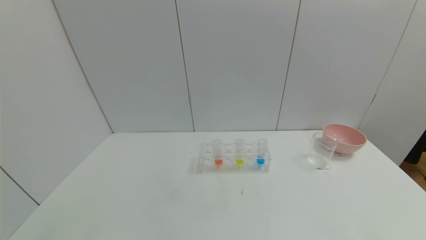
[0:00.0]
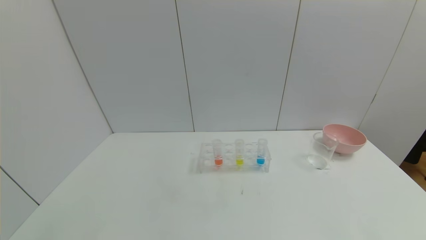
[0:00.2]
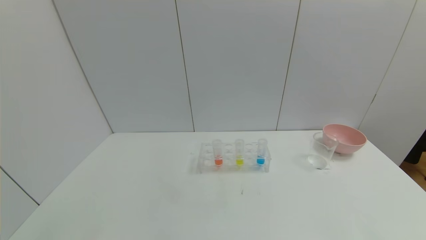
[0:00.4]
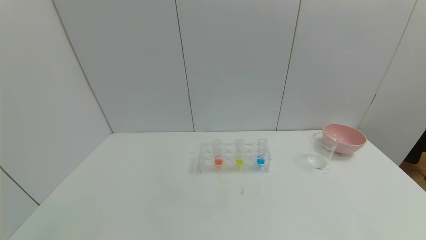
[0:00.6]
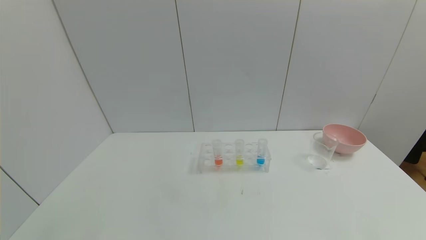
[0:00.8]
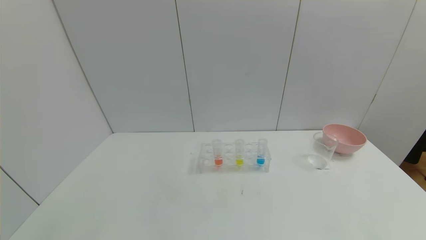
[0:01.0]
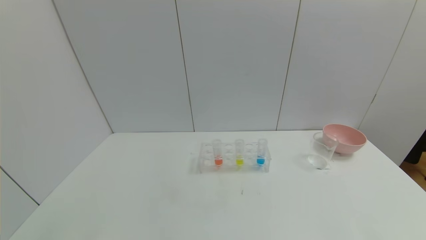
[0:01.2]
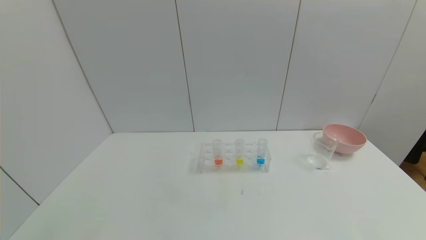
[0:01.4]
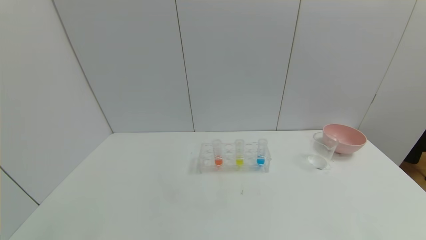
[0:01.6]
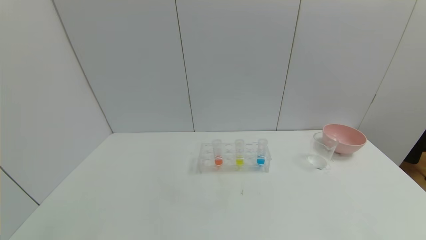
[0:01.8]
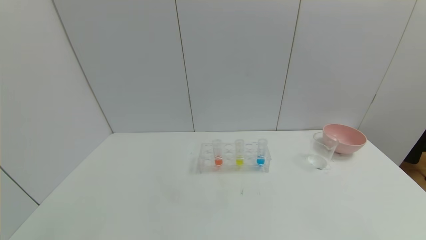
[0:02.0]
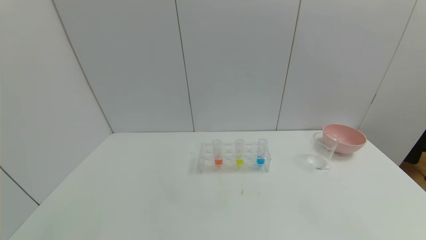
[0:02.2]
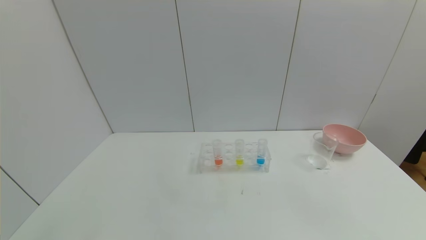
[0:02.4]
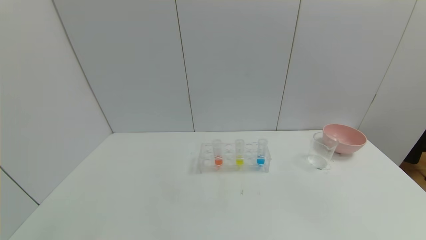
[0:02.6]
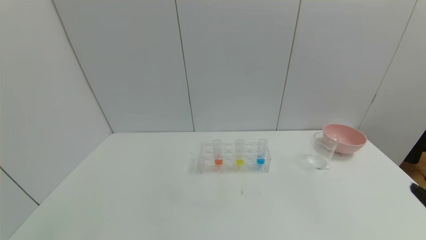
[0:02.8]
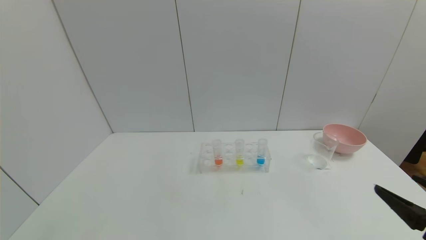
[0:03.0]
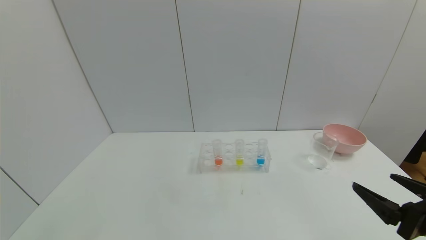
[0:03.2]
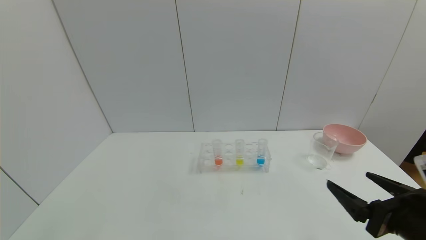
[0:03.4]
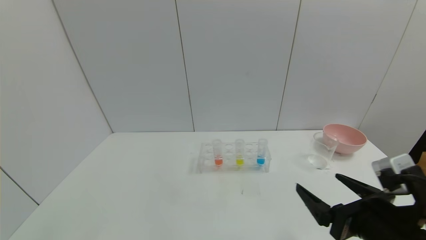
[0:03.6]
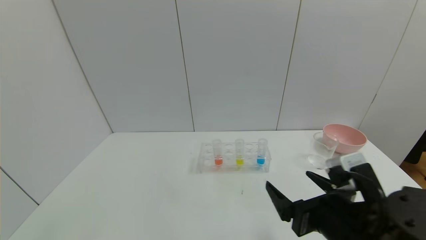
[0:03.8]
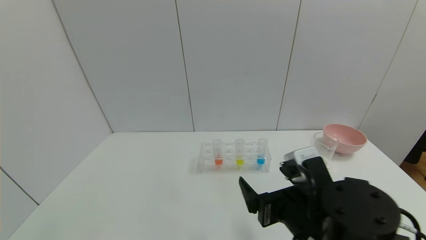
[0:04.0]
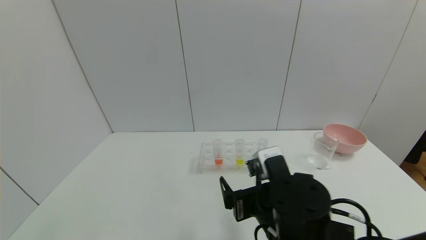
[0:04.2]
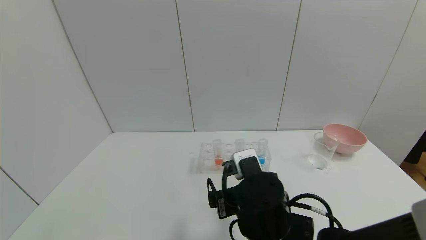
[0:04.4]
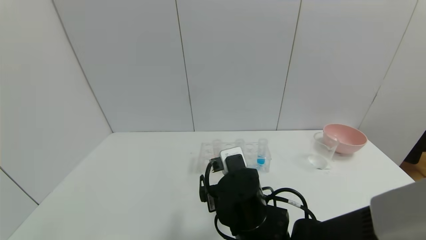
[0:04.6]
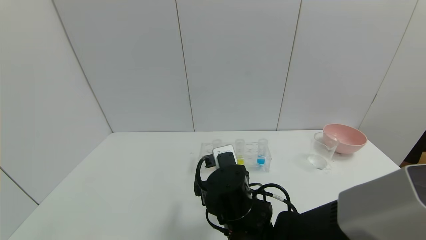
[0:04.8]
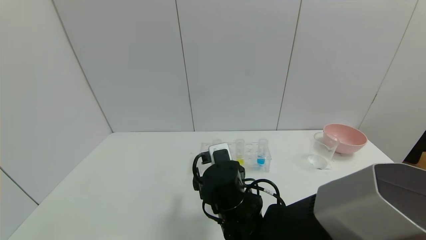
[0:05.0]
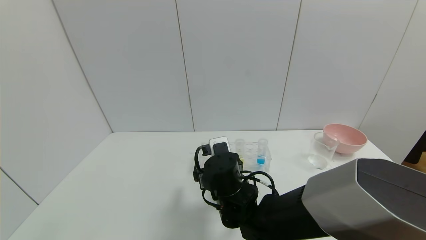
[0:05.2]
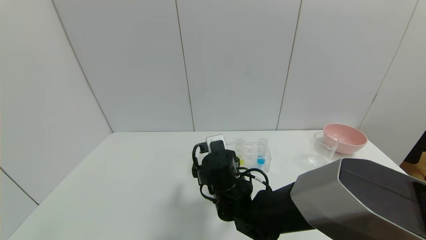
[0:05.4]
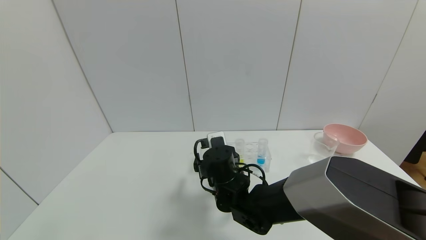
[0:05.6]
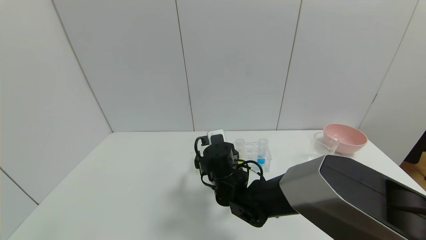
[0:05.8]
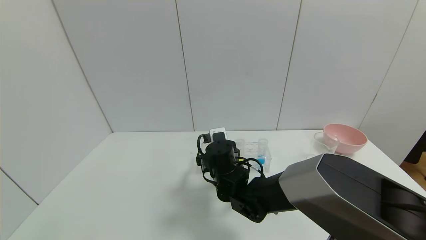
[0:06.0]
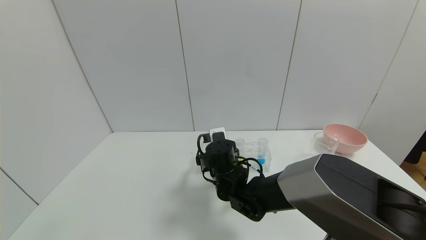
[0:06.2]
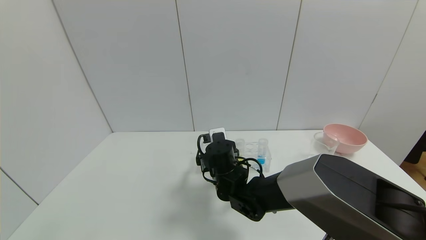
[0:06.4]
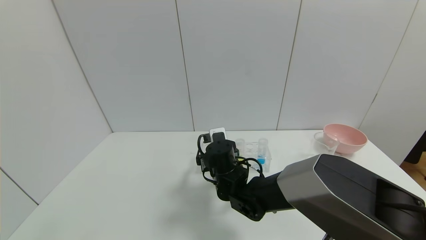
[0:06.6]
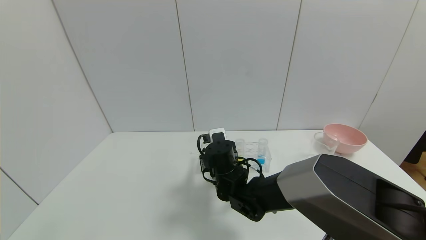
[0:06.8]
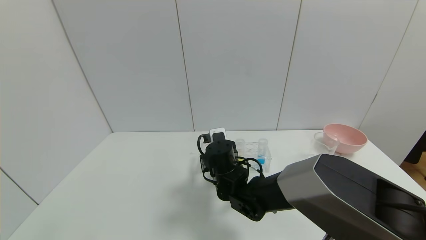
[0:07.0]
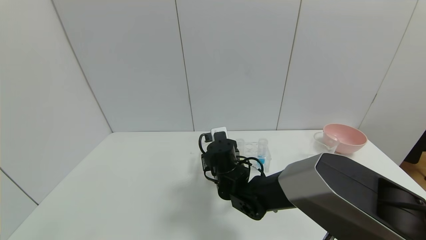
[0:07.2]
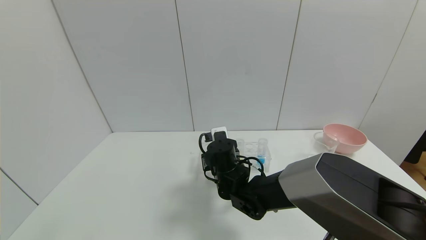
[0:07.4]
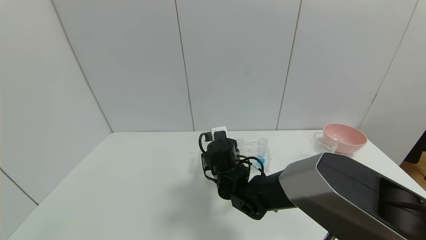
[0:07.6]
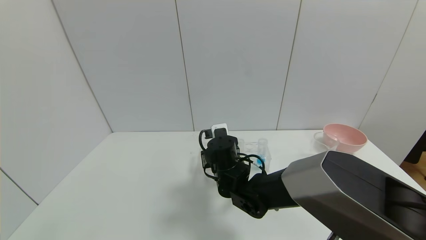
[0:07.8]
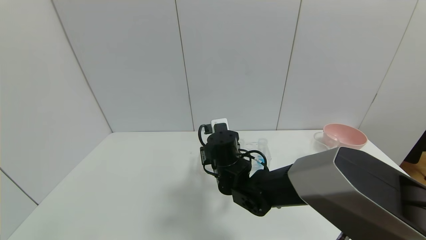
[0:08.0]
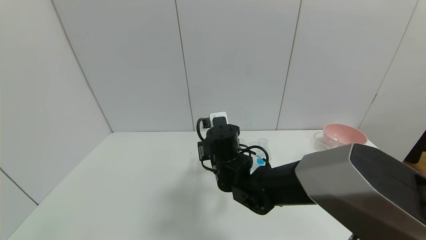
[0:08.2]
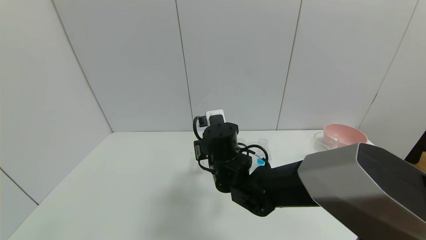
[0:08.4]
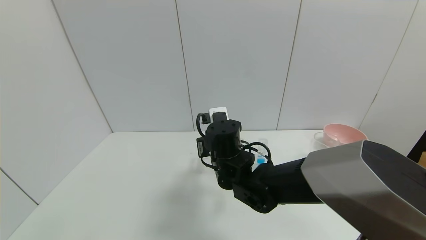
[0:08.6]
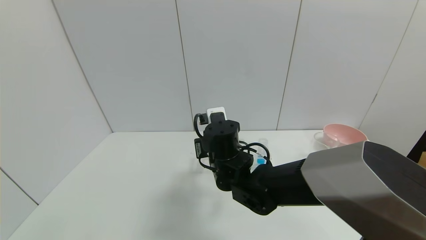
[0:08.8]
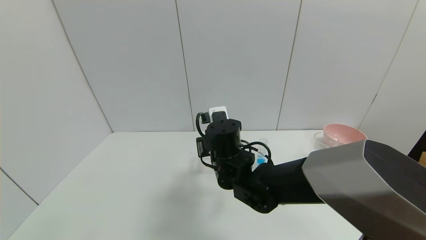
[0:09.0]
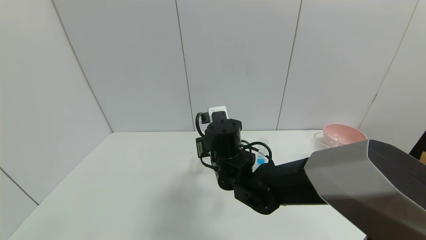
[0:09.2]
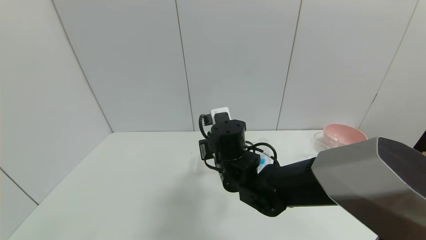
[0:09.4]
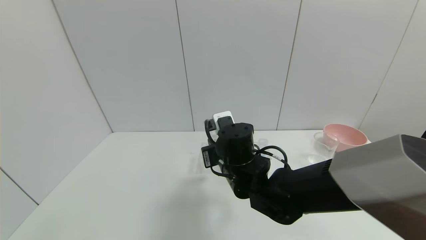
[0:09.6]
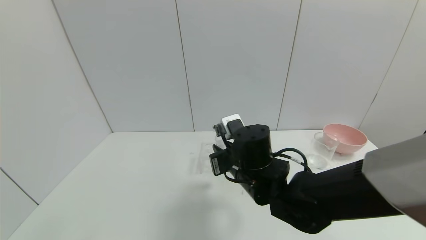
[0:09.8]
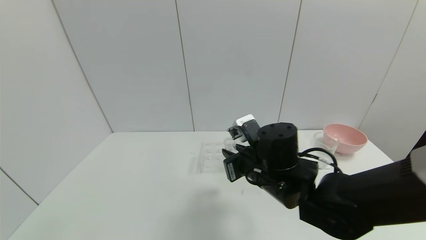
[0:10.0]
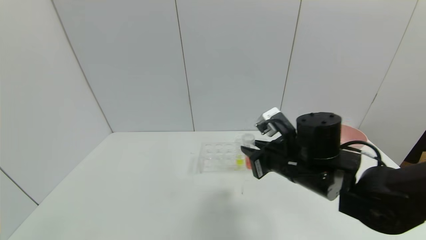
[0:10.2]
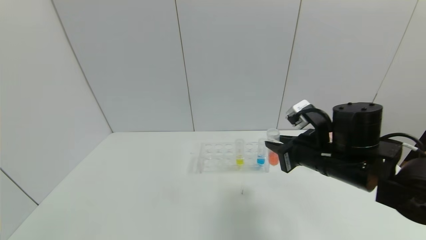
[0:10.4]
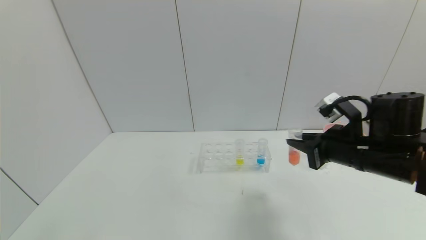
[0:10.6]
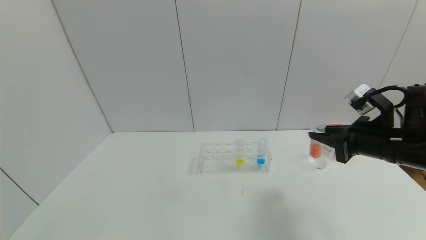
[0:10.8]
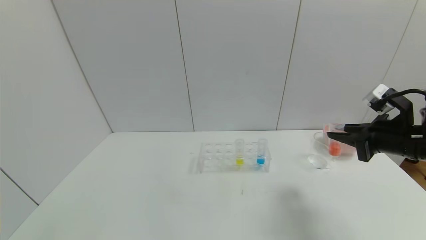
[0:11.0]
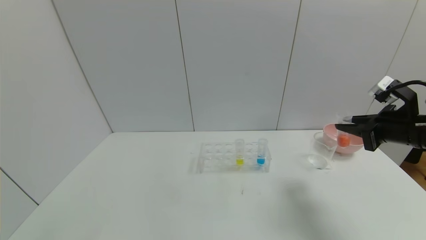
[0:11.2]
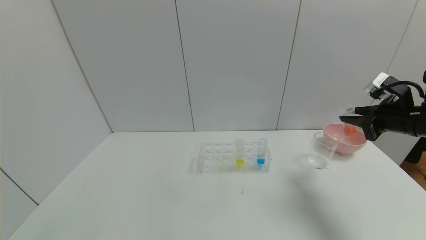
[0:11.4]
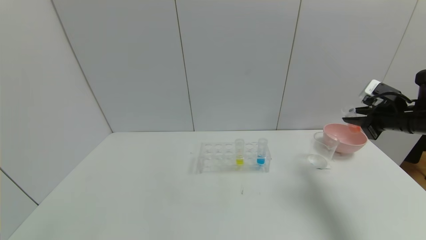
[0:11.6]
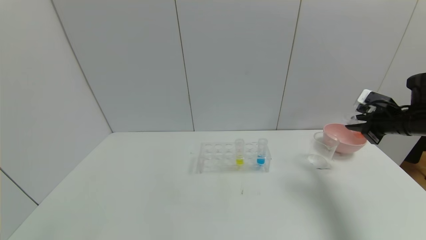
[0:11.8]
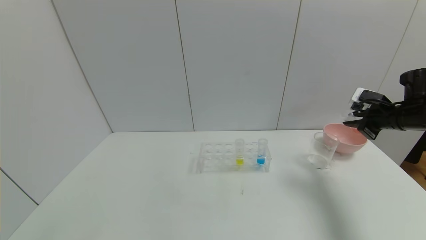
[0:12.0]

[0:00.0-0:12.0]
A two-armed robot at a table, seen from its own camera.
Task of the whole recording: pick up the test tube with red pigment and the test tube with blue pigment by grippers and pour them into the container.
Step, 0:00.0 to 0:07.2: Grasp the red reagent with the right gripper.
0:00.0 to 0:01.6: Neither gripper changes place.
0:01.6 to 0:03.0: The right gripper shifts approximately 15 cm forward and upward.
0:03.0 to 0:04.4: The right gripper shifts about 30 cm to the left.
0:04.4 to 0:06.0: The right gripper goes roughly 15 cm forward.
0:06.0 to 0:07.6: The right gripper closes up.
0:07.6 to 0:09.0: The right gripper goes about 5 cm upward.
0:09.0 to 0:10.4: The right gripper travels to the right by roughly 20 cm.
0:10.4 to 0:12.0: The right gripper heads to the right and forward, covering about 25 cm.

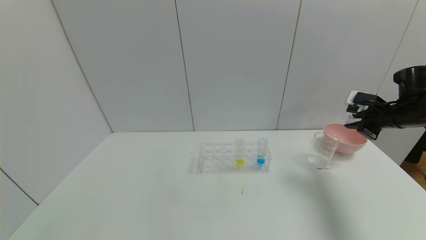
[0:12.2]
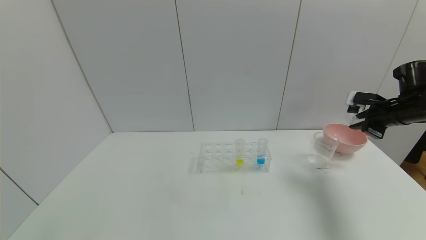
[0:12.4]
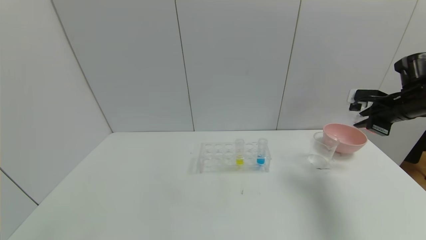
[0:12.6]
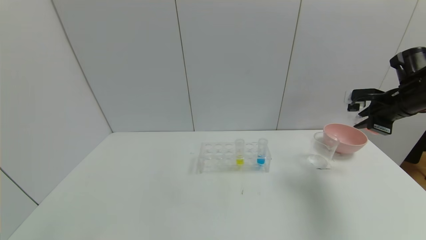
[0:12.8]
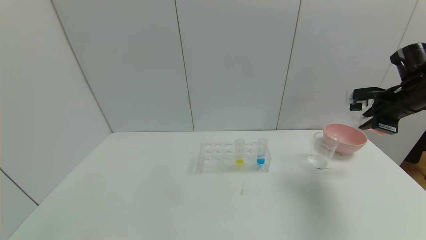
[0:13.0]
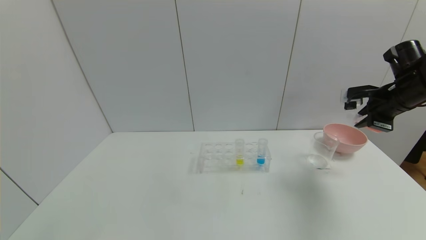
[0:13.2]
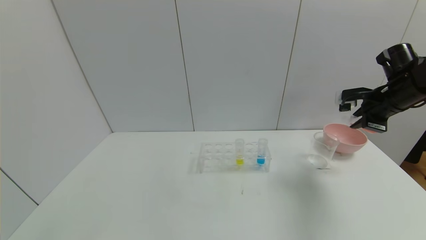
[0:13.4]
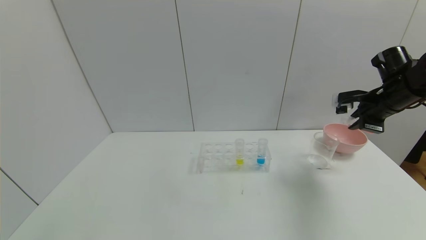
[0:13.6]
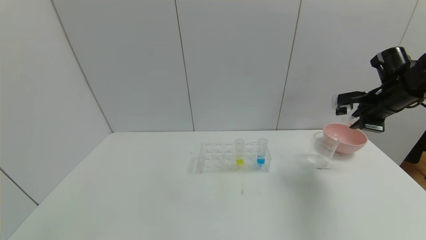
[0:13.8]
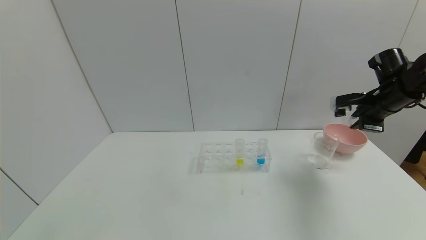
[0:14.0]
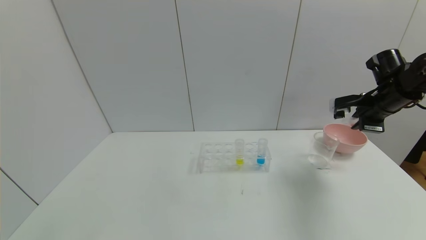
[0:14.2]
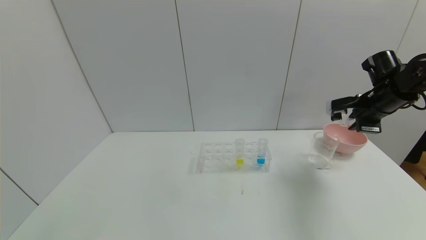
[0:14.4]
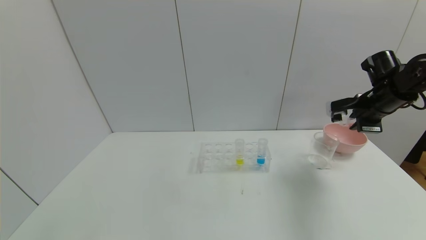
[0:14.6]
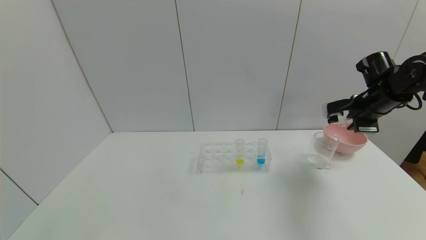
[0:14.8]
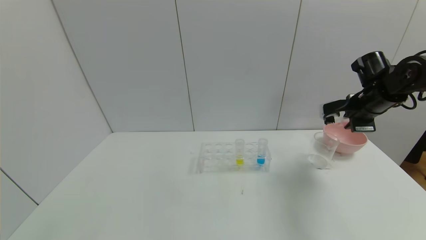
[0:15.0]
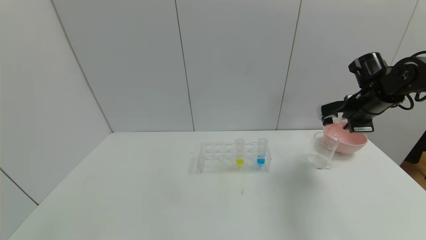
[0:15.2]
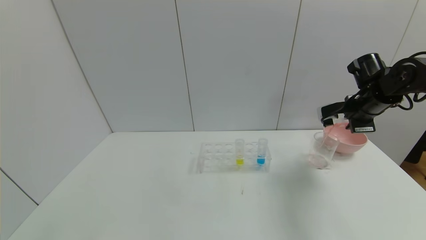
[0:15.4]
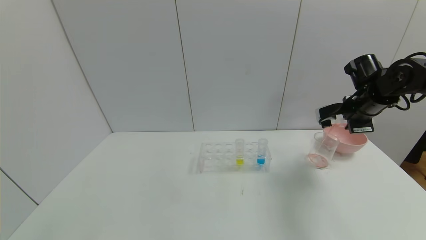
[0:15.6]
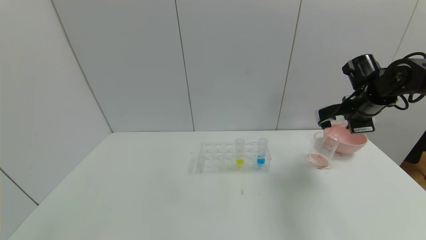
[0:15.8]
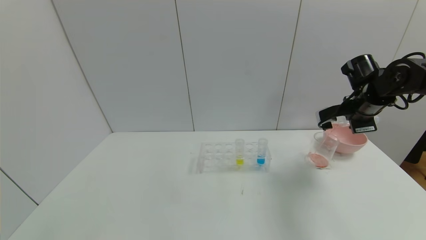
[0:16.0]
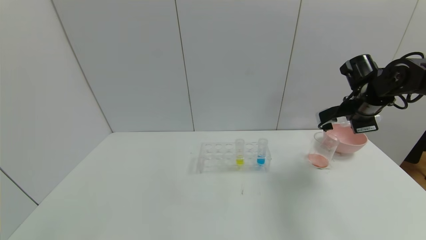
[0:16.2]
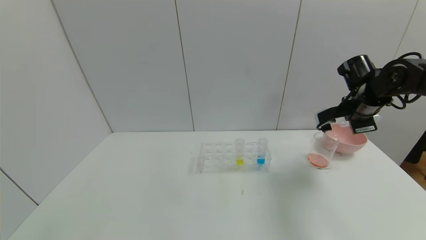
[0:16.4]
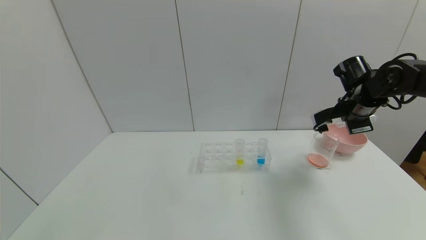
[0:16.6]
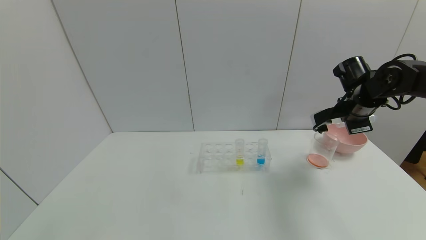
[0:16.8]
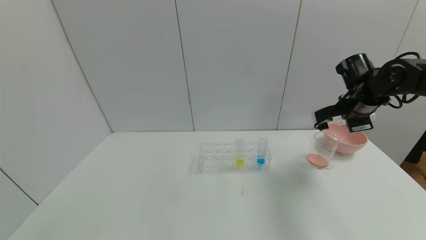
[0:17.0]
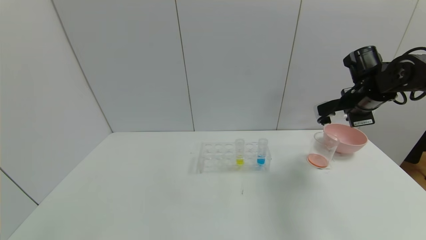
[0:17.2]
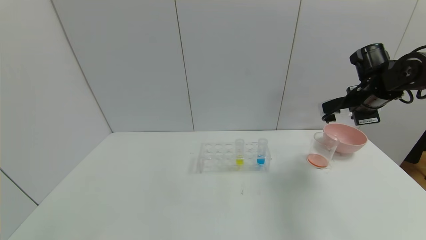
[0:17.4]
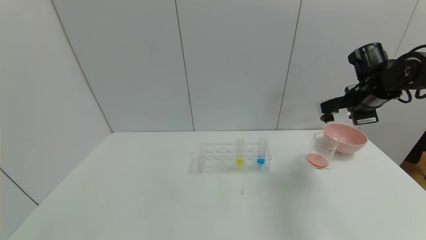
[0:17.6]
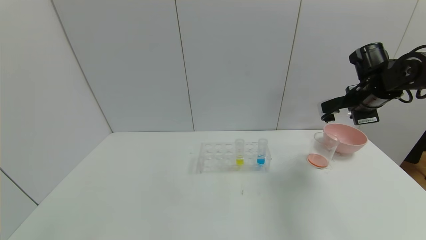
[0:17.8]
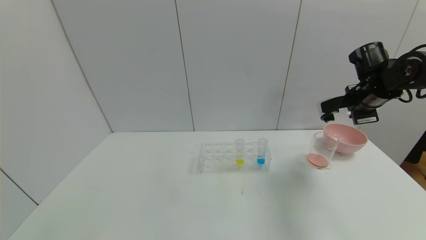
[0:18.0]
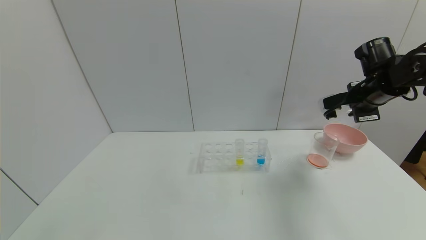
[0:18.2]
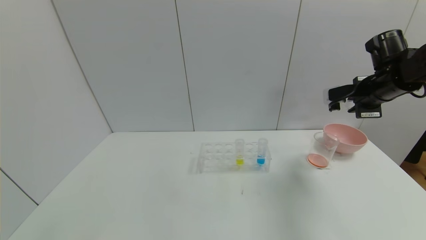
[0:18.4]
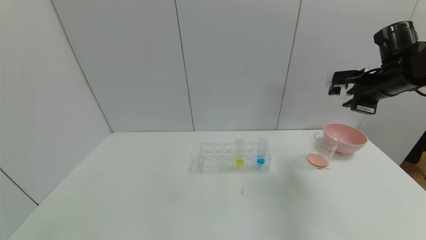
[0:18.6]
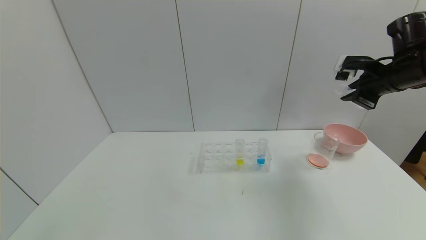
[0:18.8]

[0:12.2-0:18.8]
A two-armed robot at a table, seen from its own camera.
Task of the whole recording: pick up the test tube with red pigment and the test tube with blue pigment by grippers and pour them into the container.
Step, 0:12.2 to 0:16.6: Pour the red reagent into the graduated cylinder with the right gripper.
0:12.2 to 0:13.8: The right gripper ends up approximately 5 cm from where it was.
0:13.8 to 0:15.4: The grippers make only small movements.
0:15.4 to 0:17.2: There are only small adjustments of the grippers.
0:17.2 to 0:18.8: The right gripper goes about 5 cm upward.
